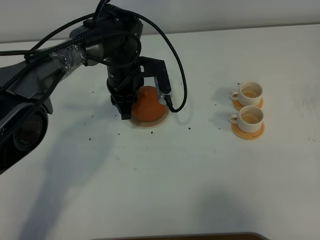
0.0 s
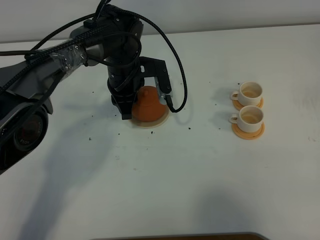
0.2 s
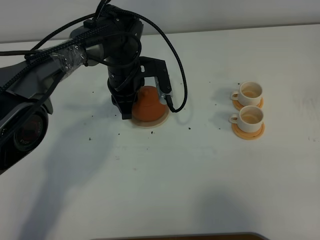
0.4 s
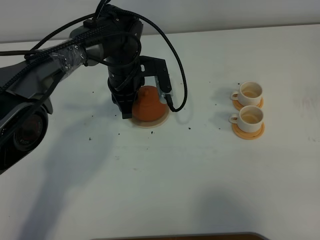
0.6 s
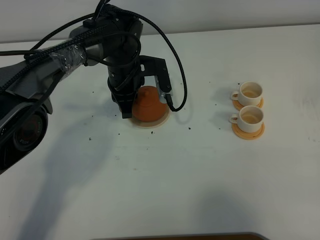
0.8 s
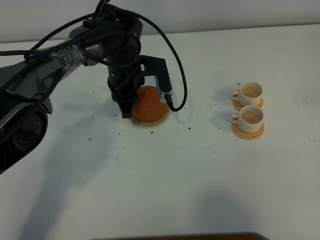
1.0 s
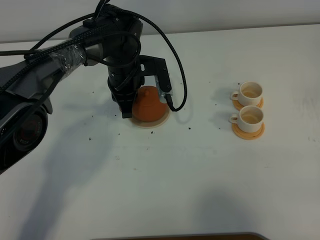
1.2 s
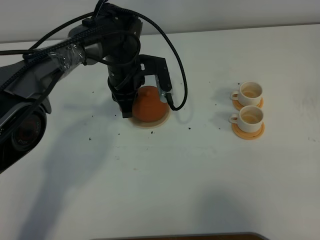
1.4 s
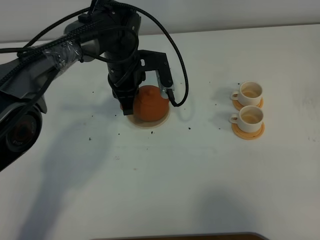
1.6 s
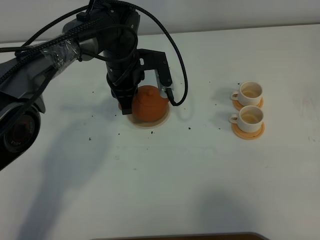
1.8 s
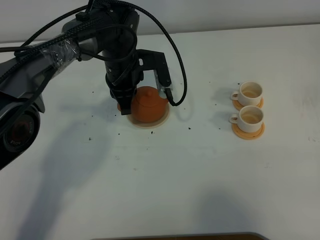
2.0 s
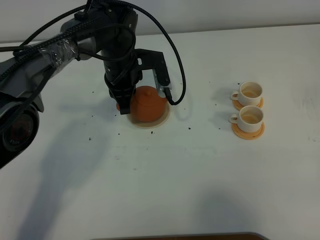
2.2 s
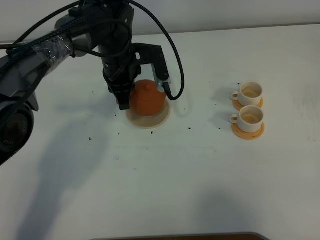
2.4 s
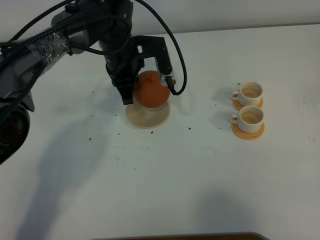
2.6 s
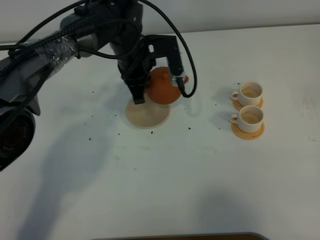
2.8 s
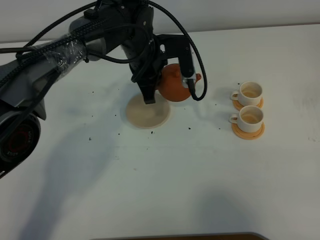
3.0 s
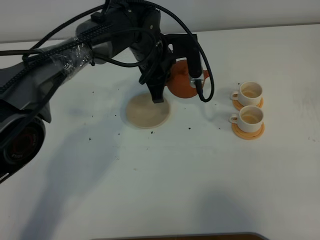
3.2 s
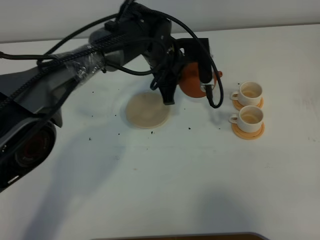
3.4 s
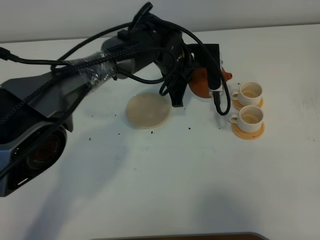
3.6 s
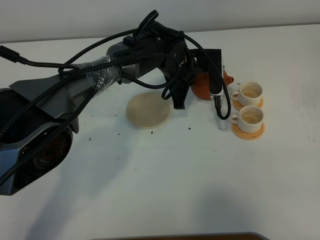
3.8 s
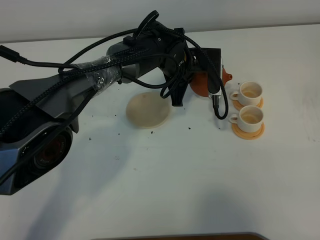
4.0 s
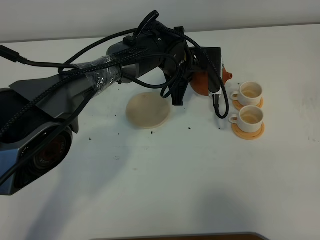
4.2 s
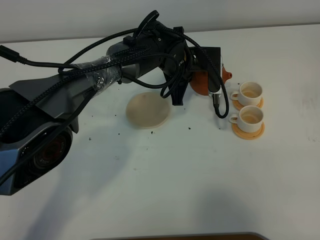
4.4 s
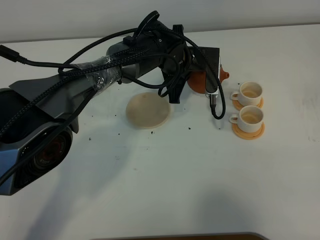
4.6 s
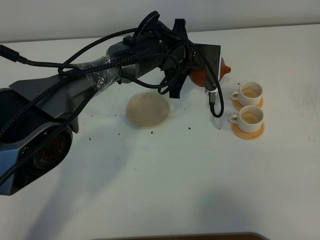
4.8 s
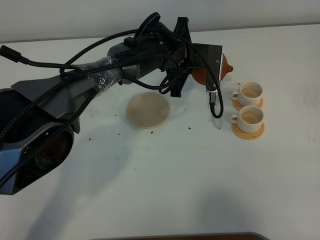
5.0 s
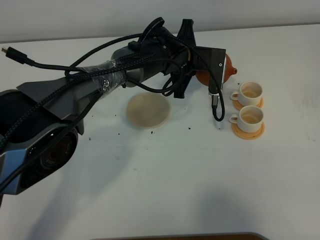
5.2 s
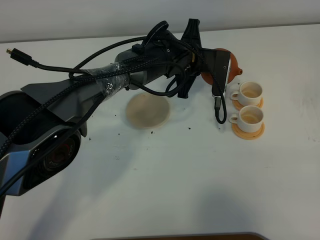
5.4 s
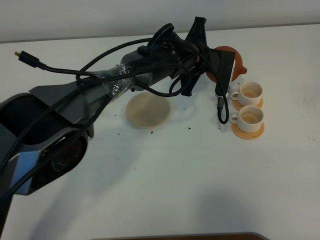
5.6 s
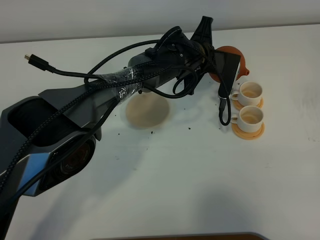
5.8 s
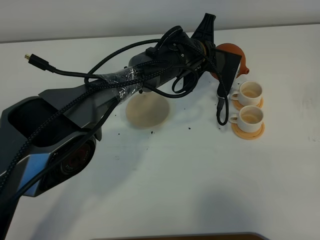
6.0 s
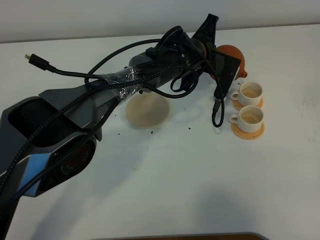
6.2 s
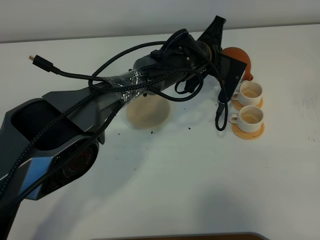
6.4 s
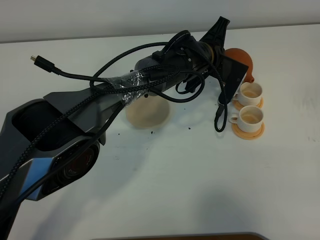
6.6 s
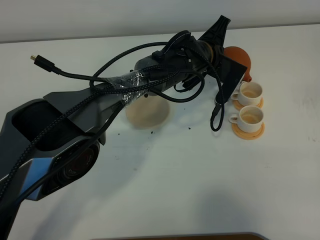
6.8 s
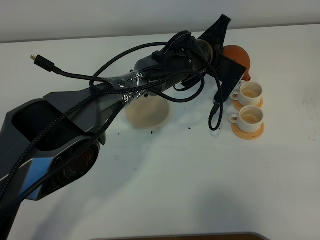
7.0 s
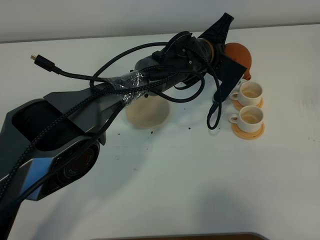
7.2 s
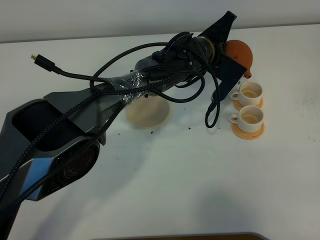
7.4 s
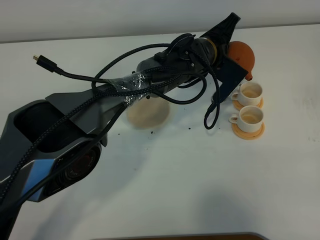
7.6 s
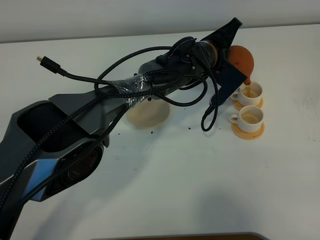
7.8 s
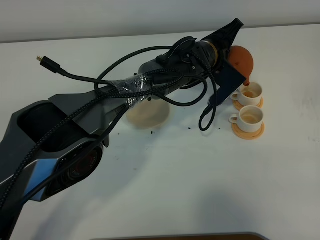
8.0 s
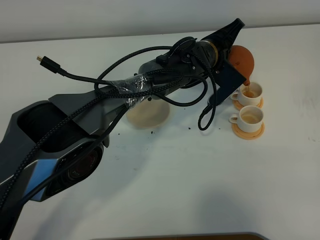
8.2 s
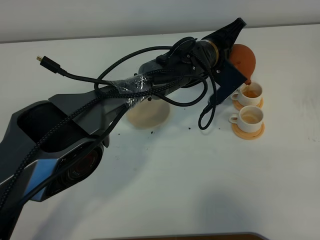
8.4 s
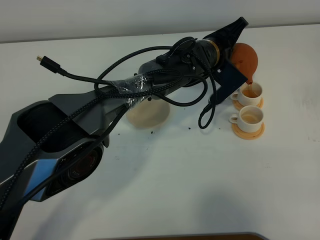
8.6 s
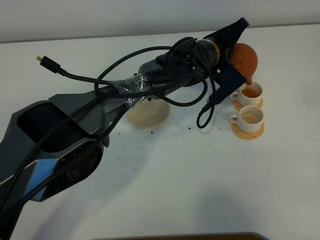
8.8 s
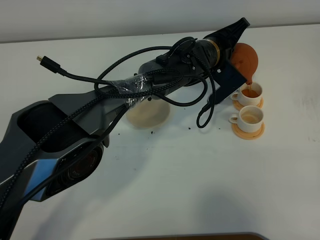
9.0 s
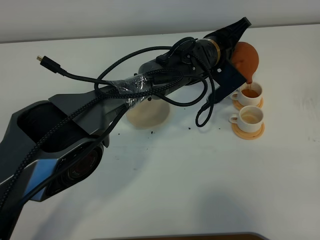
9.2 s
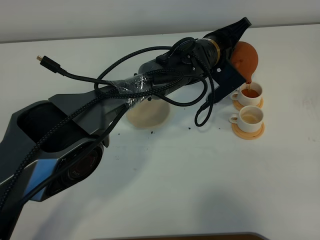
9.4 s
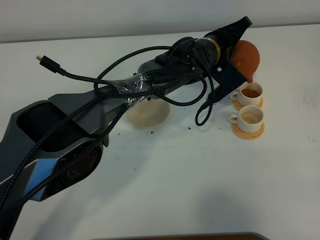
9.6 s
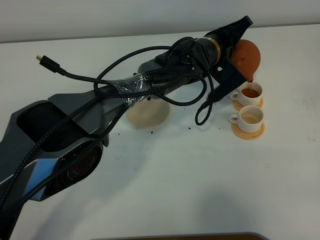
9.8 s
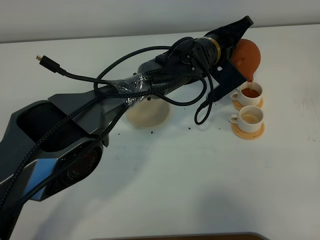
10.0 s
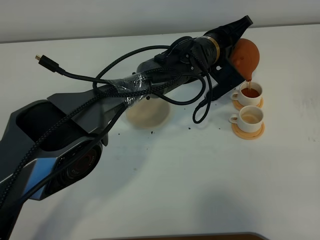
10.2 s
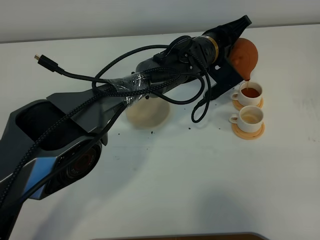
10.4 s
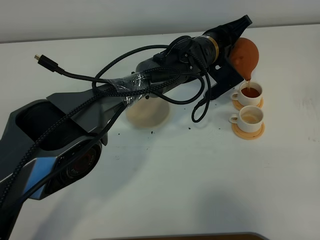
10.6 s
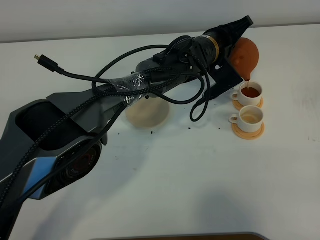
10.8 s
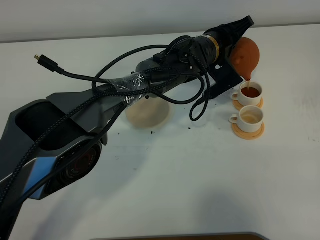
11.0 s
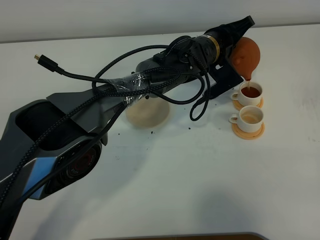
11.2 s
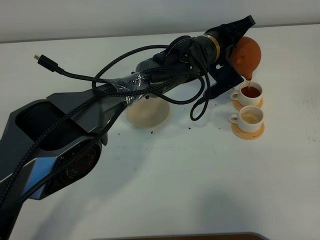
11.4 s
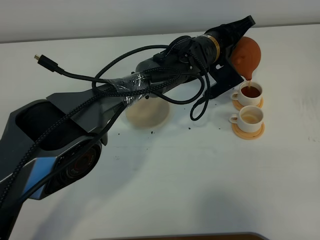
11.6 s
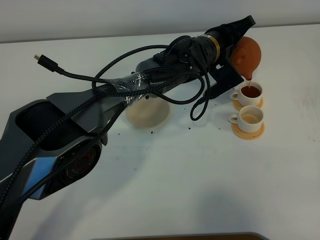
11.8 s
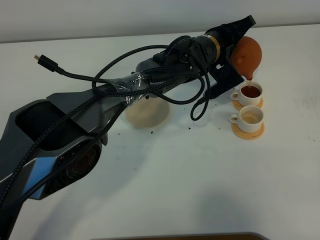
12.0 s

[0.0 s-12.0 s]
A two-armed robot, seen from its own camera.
Task of the whole recording: grasp the brown teapot and pour the tea into the two white teacups one by one, put the brown teapot back in its original place.
Step, 0.0 to 3.0 s: Pick up the teapot with the left gripper.
0.0 to 1.6 s: The left gripper closes up.
1.6 to 3.0 s: The left gripper shifts by approximately 5 cm.
3.0 to 4.4 s: The left gripper moves to the right, approximately 5 cm.
7.6 to 10.4 s: The grippers make only small movements.
10.4 to 12.0 s: The two grippers keep their place.

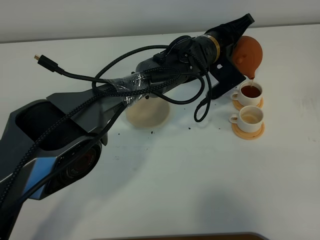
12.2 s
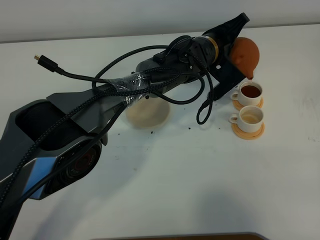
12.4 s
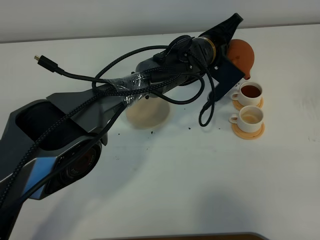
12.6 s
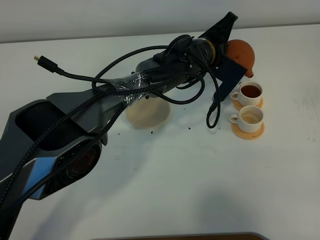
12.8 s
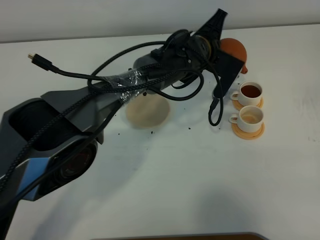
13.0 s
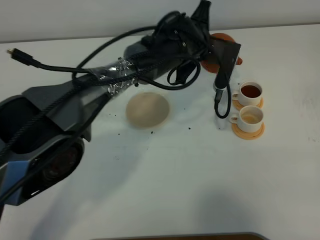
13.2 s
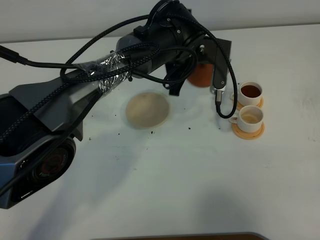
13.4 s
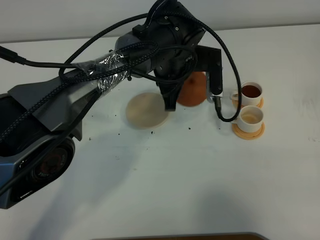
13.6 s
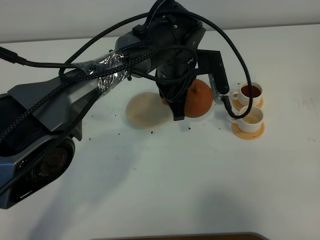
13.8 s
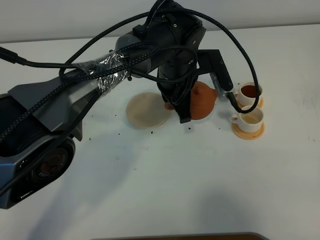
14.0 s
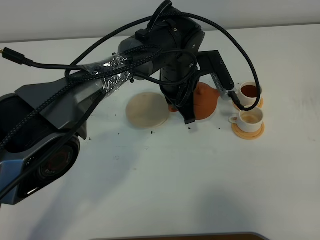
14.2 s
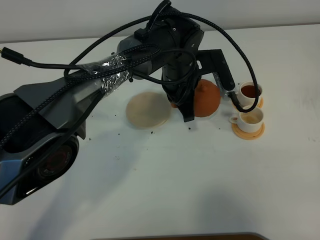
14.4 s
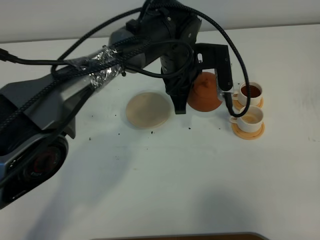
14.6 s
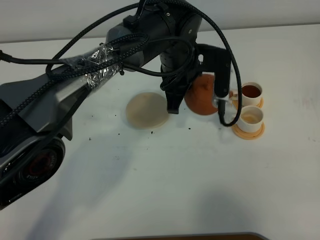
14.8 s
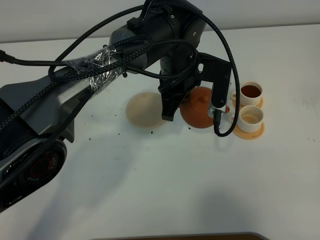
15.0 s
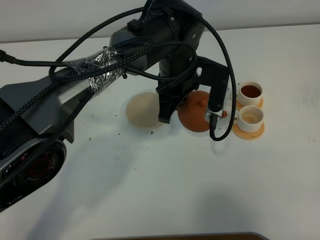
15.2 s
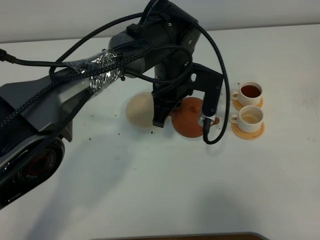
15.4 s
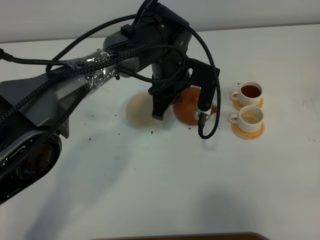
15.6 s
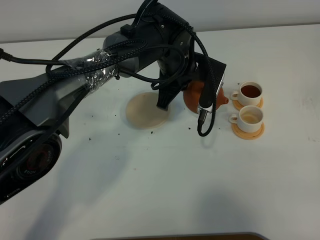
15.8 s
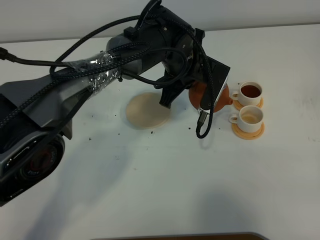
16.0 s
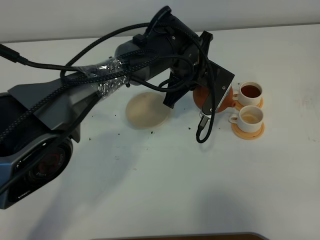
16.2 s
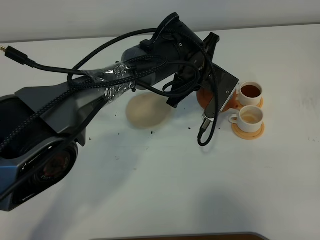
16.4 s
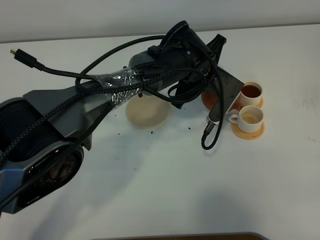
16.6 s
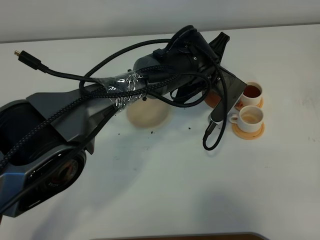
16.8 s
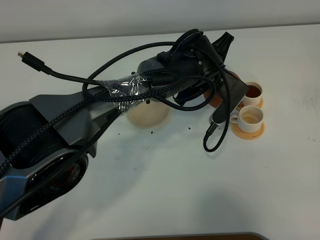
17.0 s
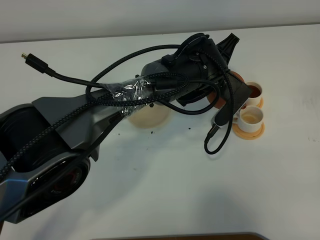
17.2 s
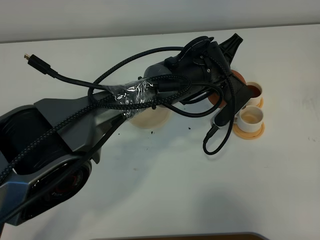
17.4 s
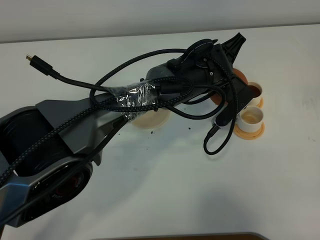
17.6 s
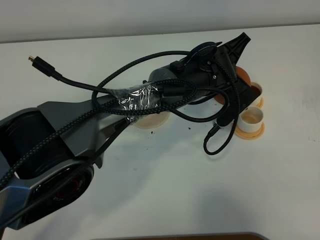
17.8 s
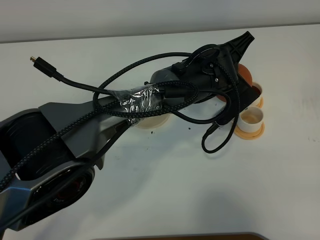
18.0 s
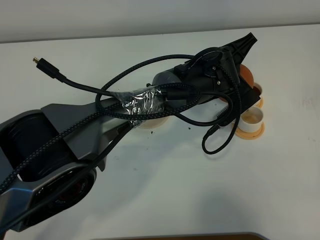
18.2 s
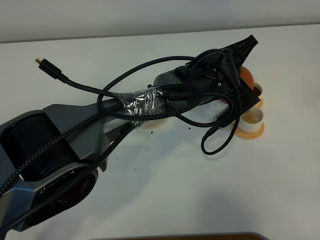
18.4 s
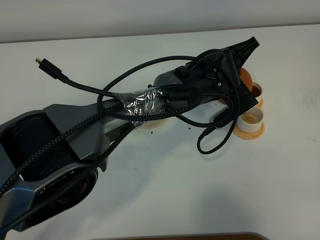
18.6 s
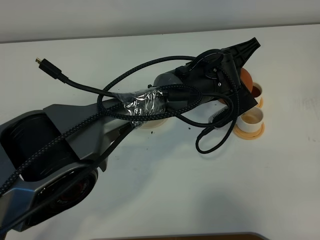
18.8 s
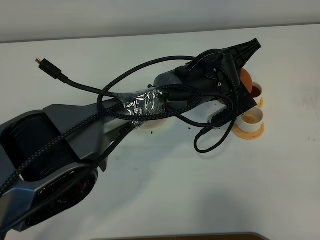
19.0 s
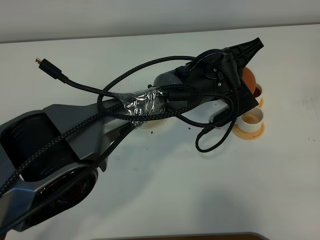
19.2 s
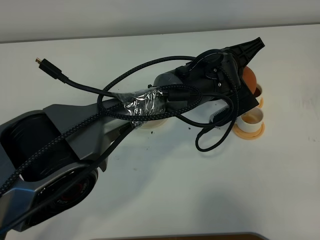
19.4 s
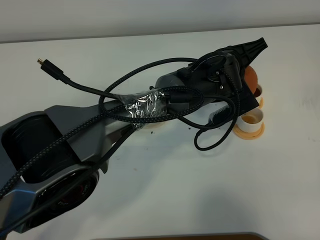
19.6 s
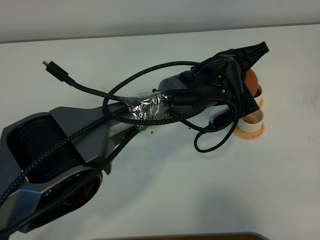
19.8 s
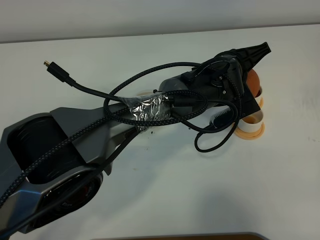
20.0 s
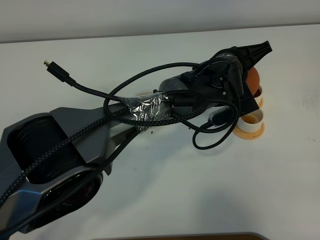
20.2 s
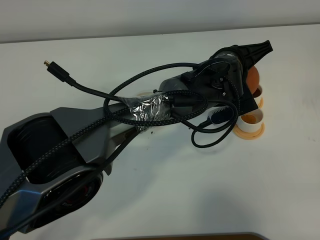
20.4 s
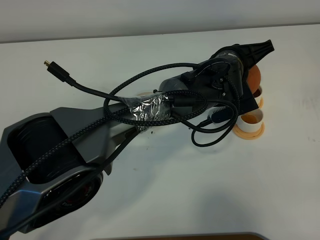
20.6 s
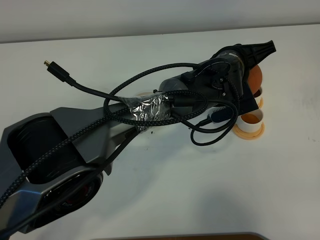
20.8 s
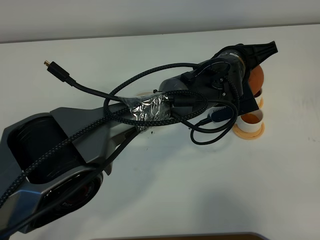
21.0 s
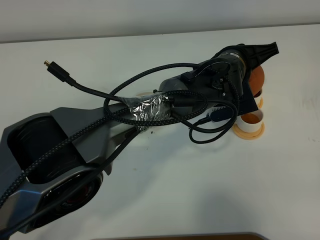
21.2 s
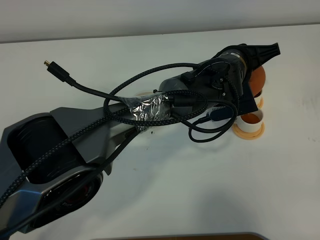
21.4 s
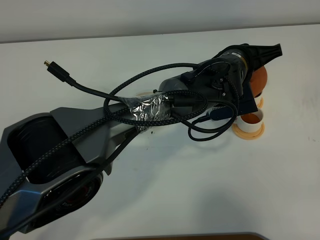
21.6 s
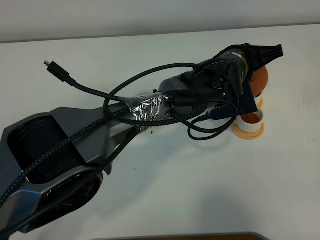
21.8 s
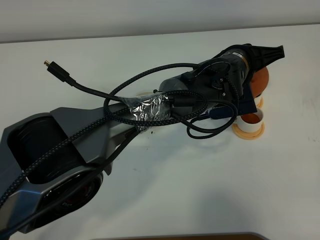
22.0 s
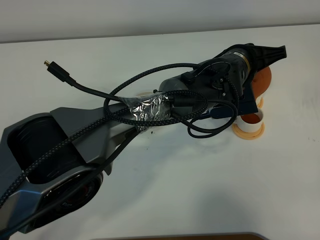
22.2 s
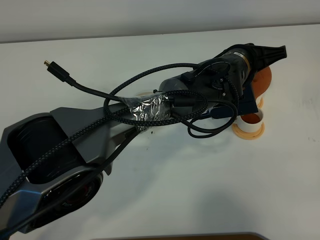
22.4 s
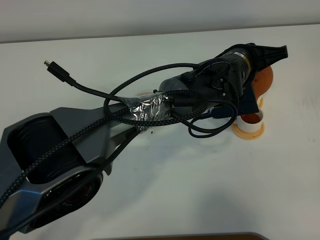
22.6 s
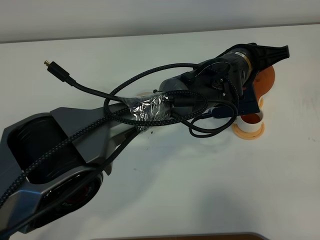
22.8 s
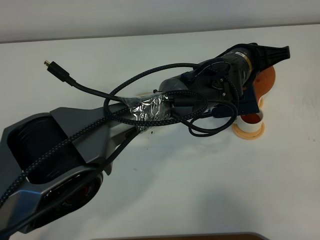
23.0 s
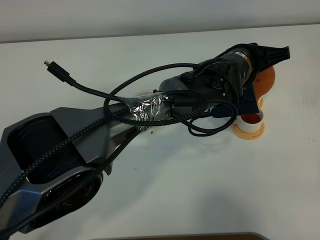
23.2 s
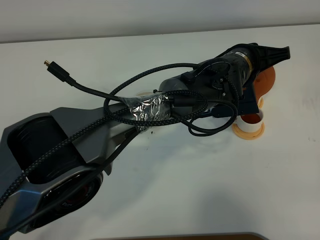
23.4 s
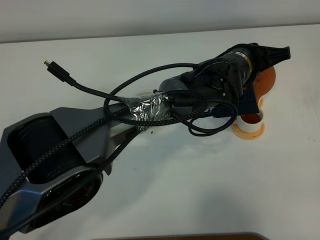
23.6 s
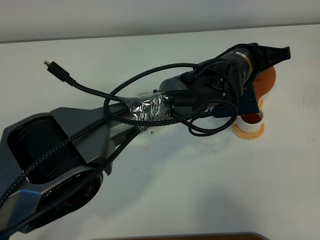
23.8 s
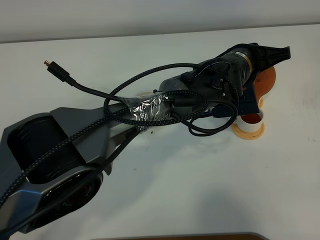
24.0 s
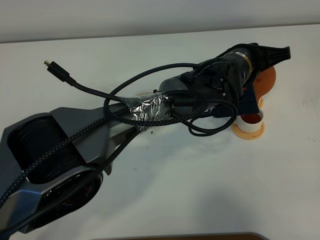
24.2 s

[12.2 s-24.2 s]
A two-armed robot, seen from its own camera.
Task of the whole recording: grasp the brown teapot and pour the tea into the two white teacups one by one, put the brown teapot back in its original place.
12.2 to 13.8 s: The left gripper heads to the left, covering some 5 cm.
15.2 to 16.6 s: The left gripper shifts by roughly 5 cm.
18.2 to 19.8 s: The grippers make only small movements.
19.8 to 22.6 s: There are only small adjustments of the grippers.
22.6 to 24.2 s: The two grippers keep their place.
